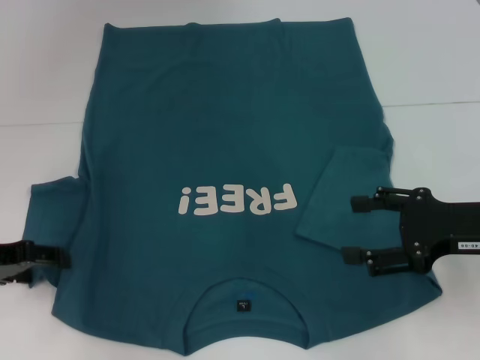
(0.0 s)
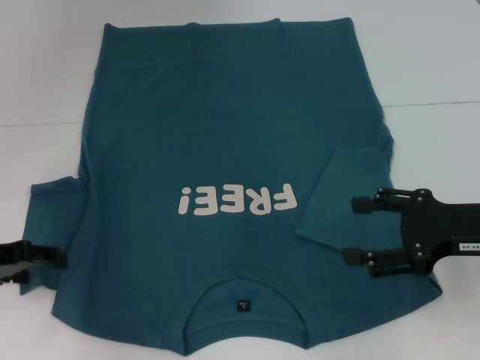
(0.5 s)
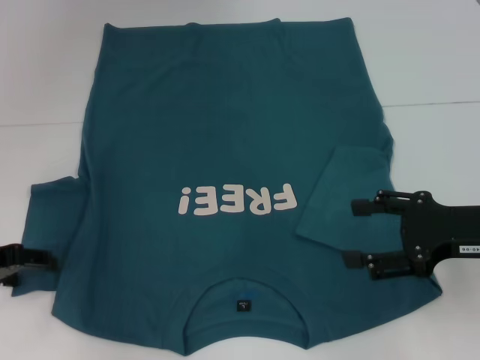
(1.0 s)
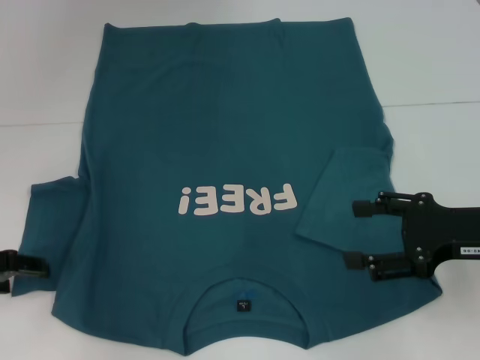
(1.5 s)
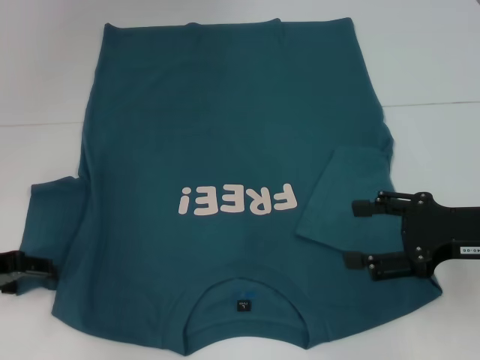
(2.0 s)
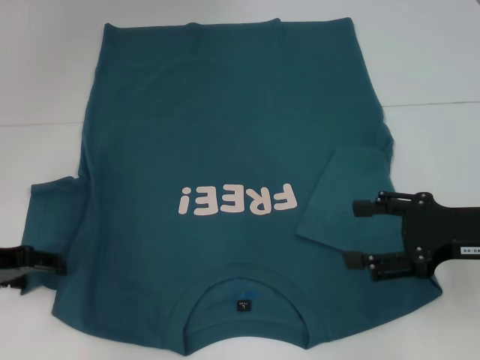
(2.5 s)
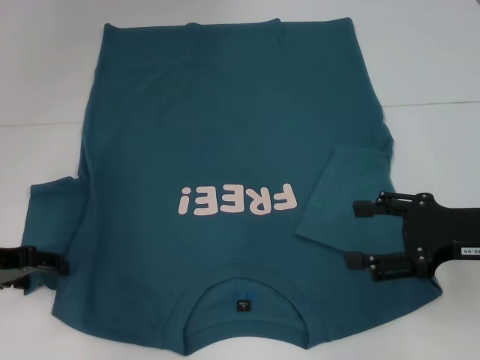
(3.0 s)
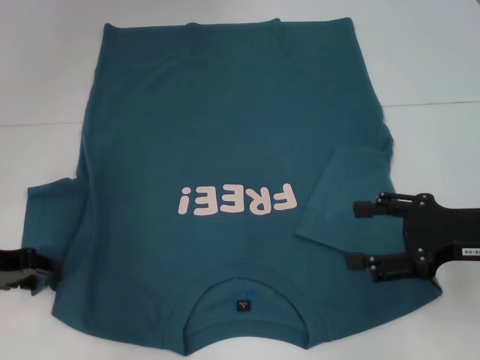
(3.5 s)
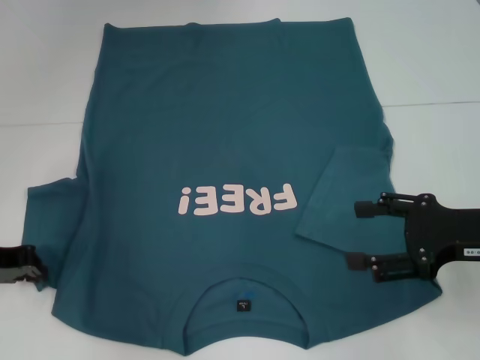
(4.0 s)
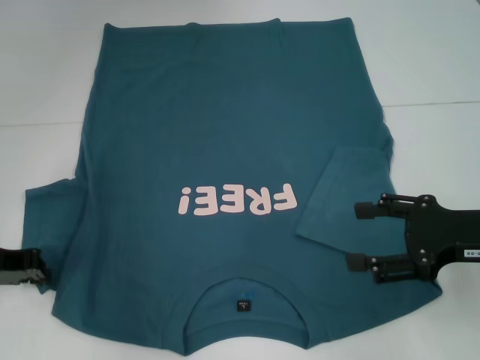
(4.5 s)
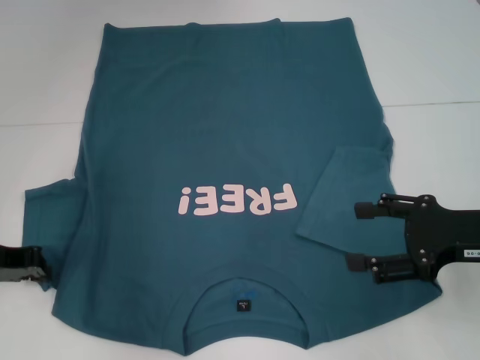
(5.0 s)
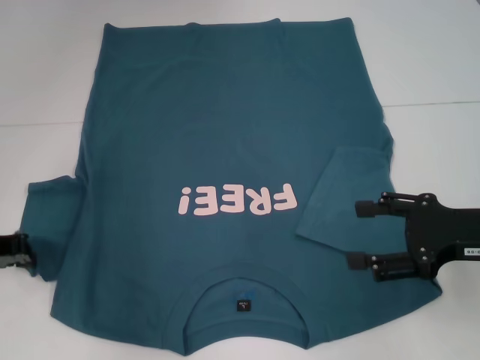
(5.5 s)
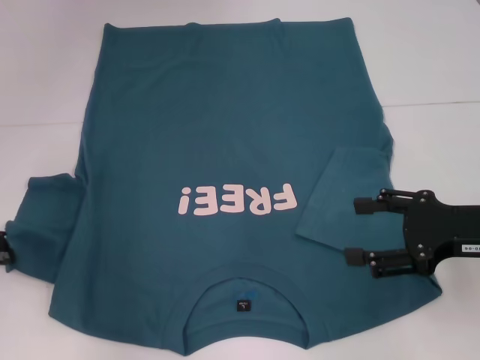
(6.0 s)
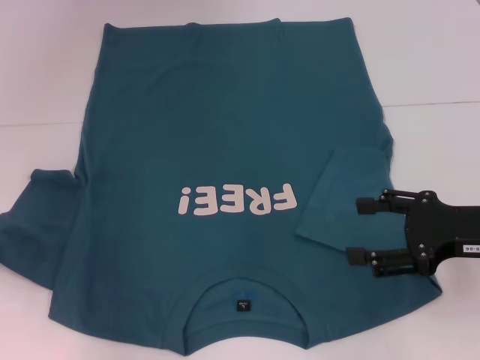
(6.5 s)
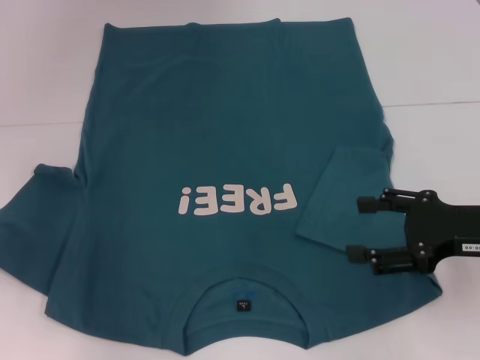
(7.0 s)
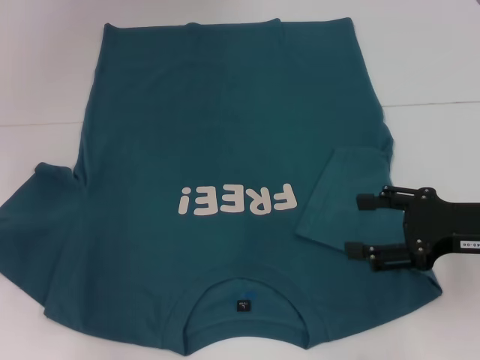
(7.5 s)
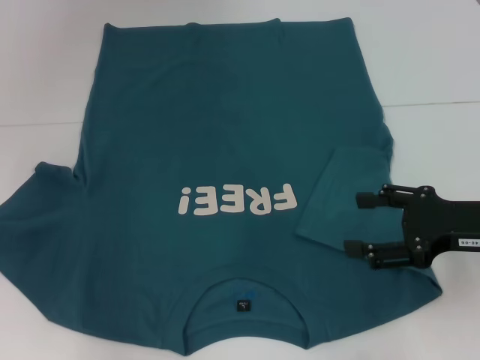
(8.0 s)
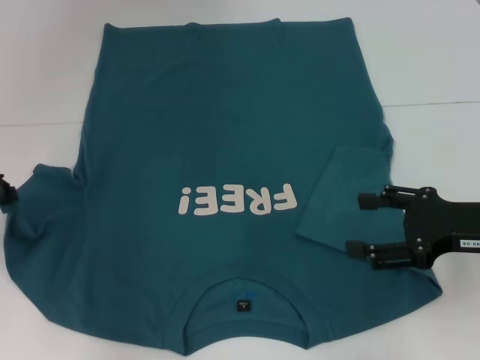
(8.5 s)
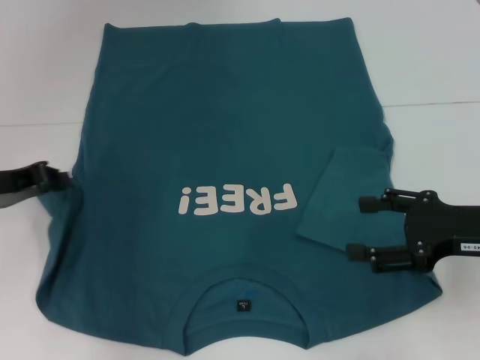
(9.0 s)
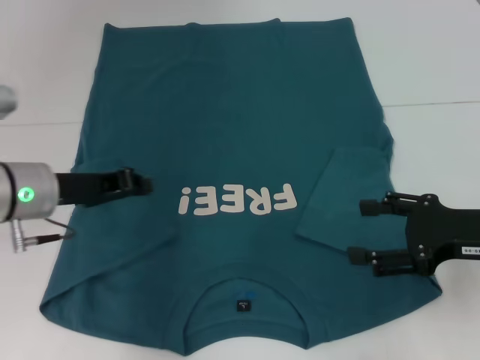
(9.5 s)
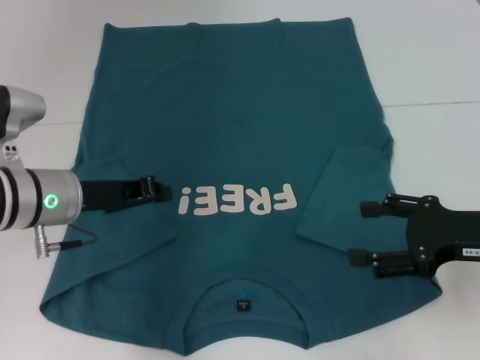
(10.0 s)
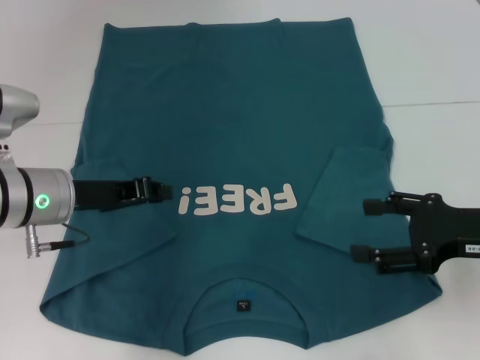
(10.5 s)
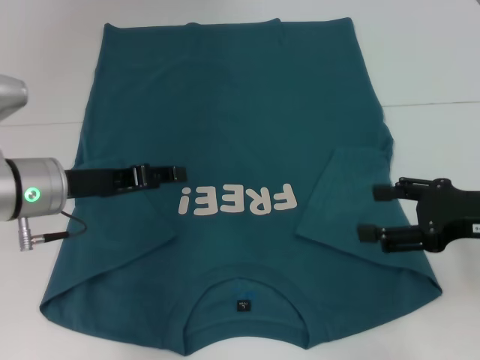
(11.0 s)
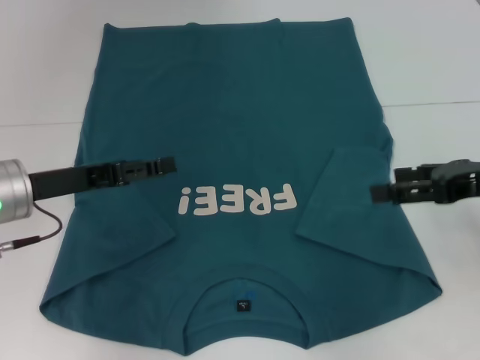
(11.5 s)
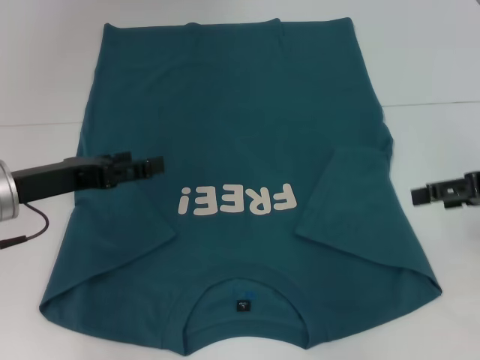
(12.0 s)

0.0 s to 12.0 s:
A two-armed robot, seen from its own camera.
Step, 0.0 to 11.0 s: Fold the bottom left sleeve with your left hand.
0.0 to 2.0 s: There are only small adjustments of the grippers.
2.0 to 4.0 s: The left gripper closes its fingers.
4.0 to 6.0 s: The grippers move only a little.
6.0 to 8.0 s: The grippers stay close to where they were, moving slightly.
8.0 to 10.0 s: The left gripper travels to the right by approximately 15 cm.
10.0 to 12.0 s: The right gripper is displaced upward by roughly 5 cm. The left gripper shifts roughly 5 cm to the left, and opens its fingers.

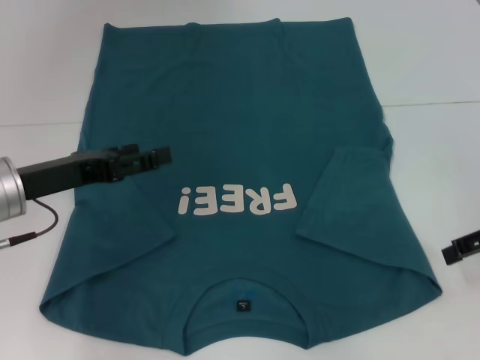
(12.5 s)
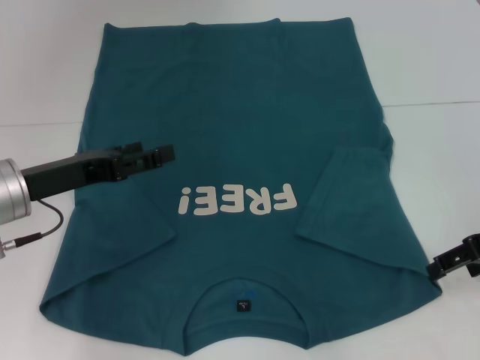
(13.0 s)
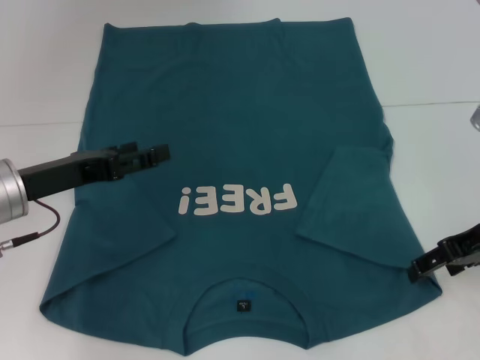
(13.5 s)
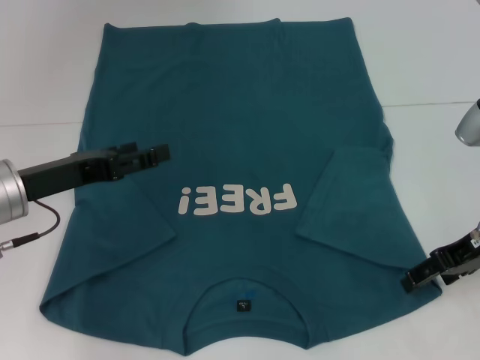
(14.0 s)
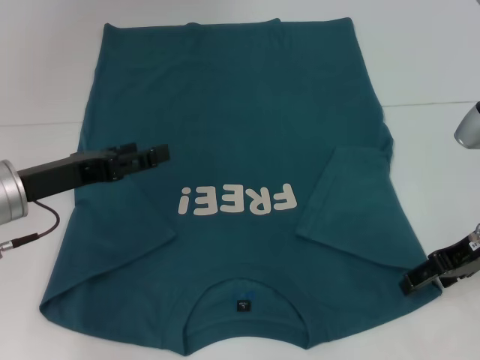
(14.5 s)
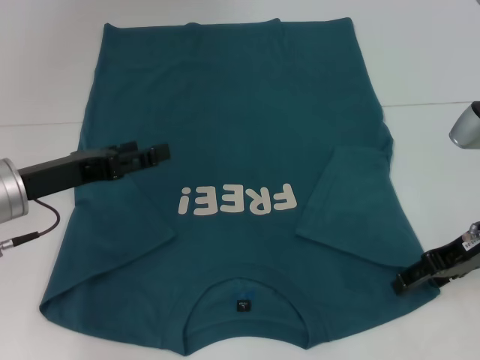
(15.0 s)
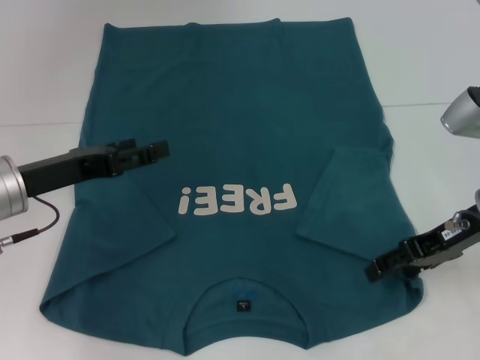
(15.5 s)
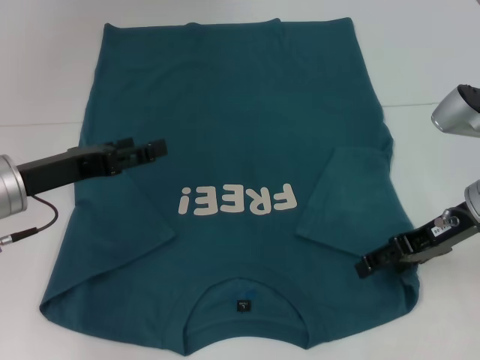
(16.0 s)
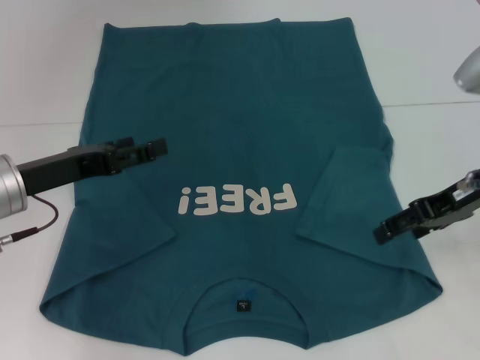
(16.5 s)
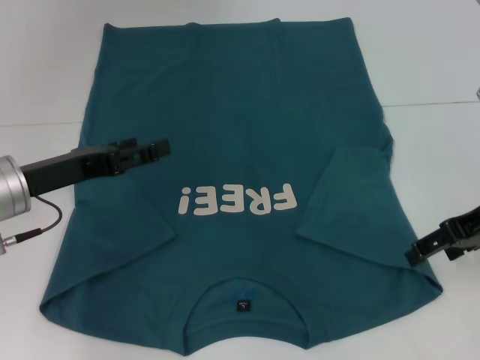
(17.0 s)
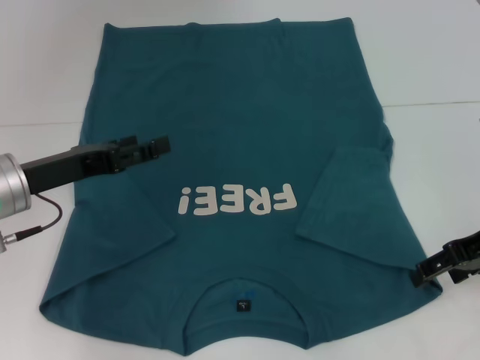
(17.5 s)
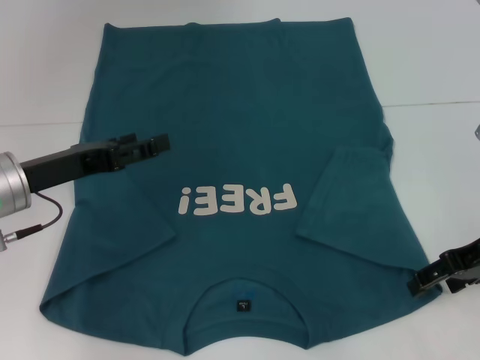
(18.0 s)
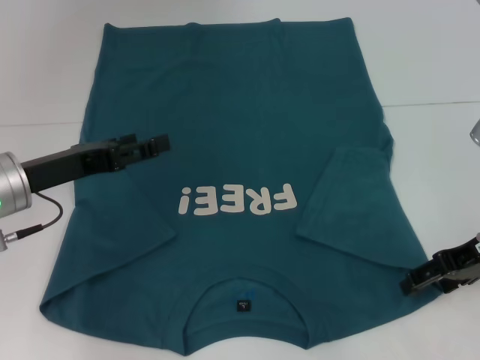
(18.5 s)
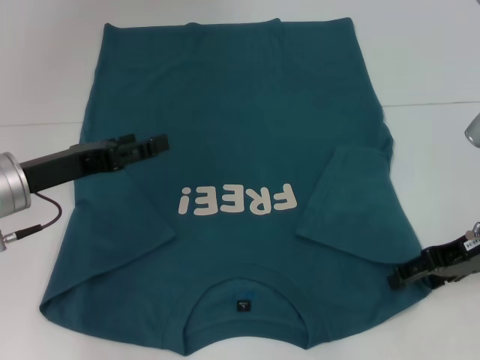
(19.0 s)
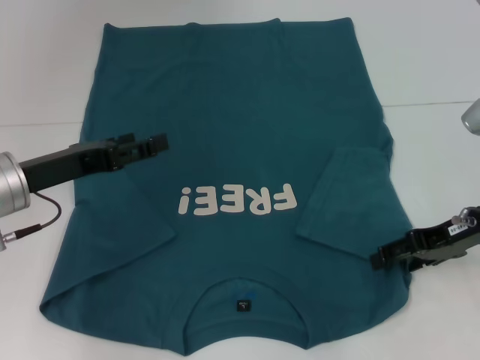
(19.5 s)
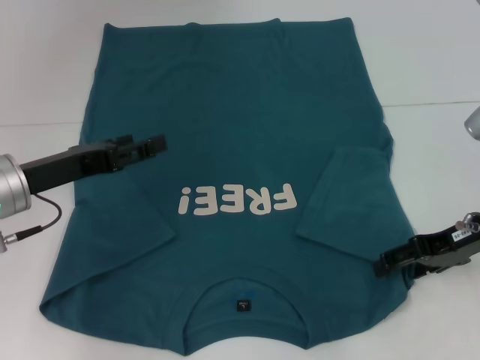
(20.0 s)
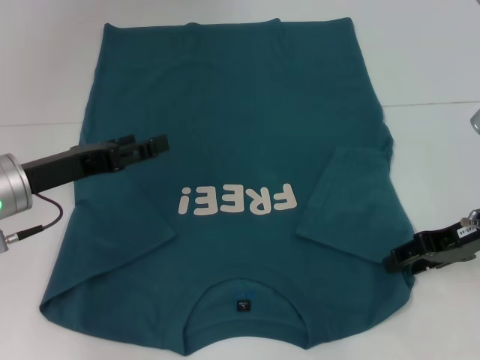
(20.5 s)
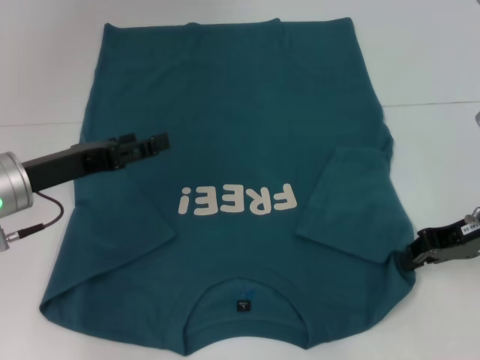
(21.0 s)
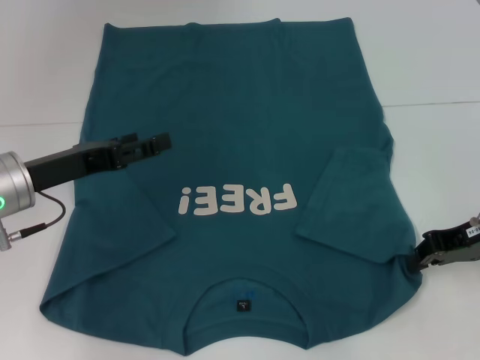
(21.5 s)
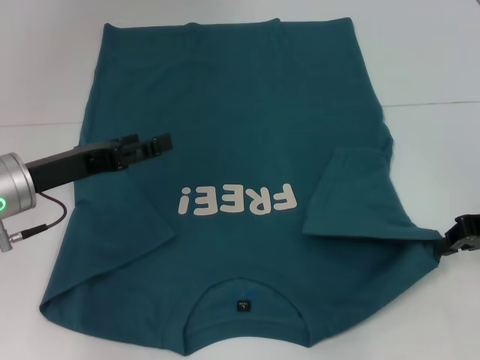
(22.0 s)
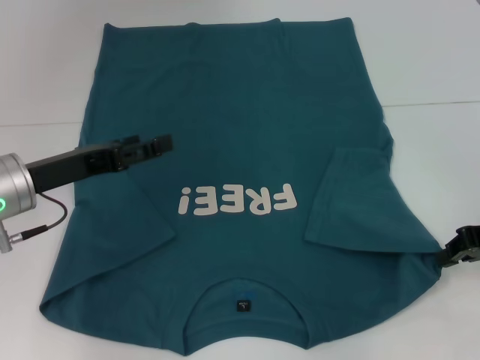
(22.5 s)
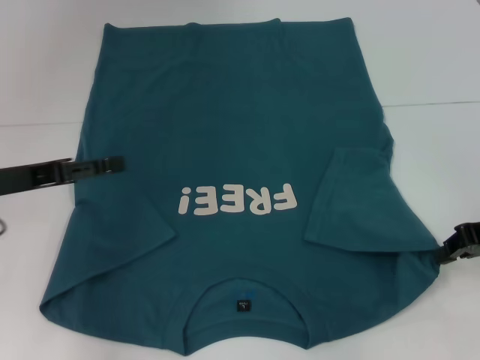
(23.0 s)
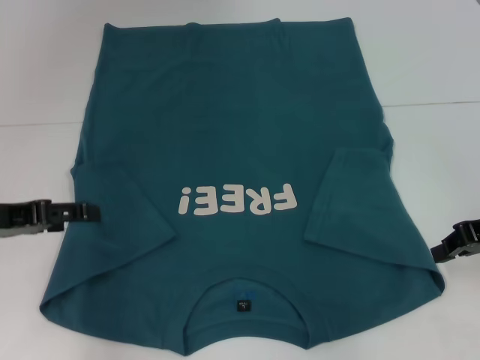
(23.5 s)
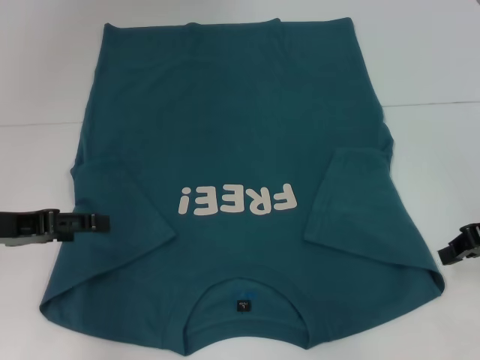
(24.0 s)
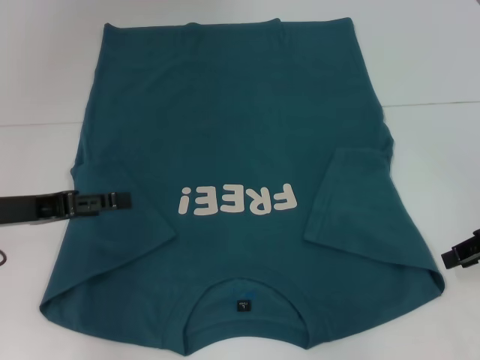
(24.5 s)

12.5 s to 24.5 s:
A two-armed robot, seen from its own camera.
12.5 to 14.5 s: The right gripper moves to the left, some 5 cm.
14.5 to 16.5 s: The grippers move only a little.
16.5 to 18.5 s: The right gripper shifts by roughly 5 cm.
18.5 to 20.5 s: The grippers move only a little.
20.5 to 22.5 s: The right gripper closes up.
22.5 to 24.5 s: The left gripper moves some 5 cm.

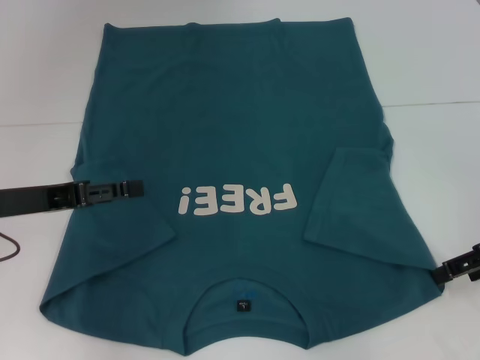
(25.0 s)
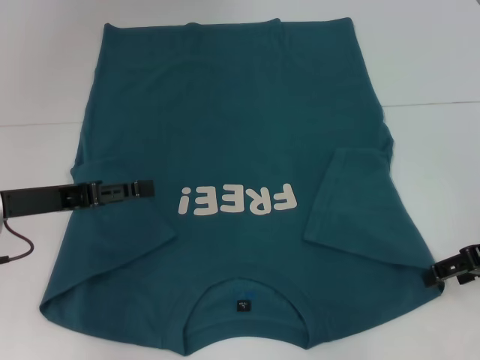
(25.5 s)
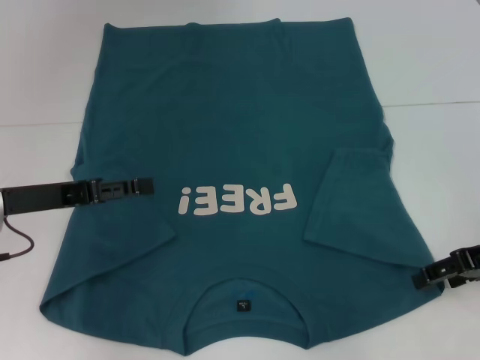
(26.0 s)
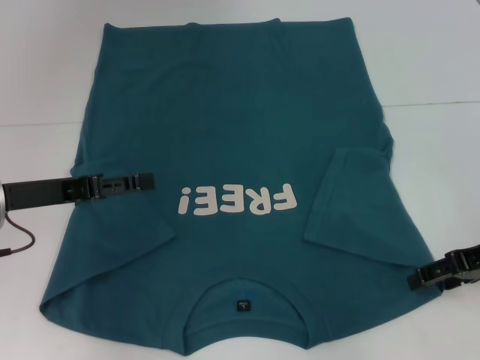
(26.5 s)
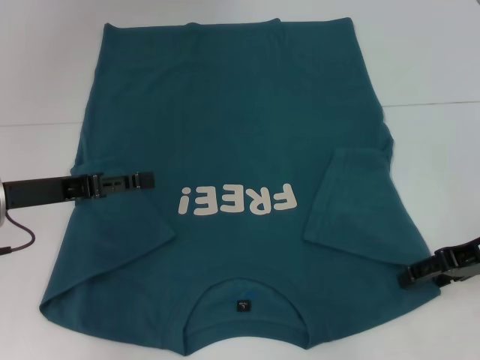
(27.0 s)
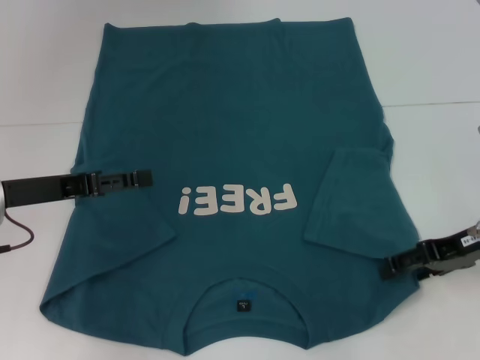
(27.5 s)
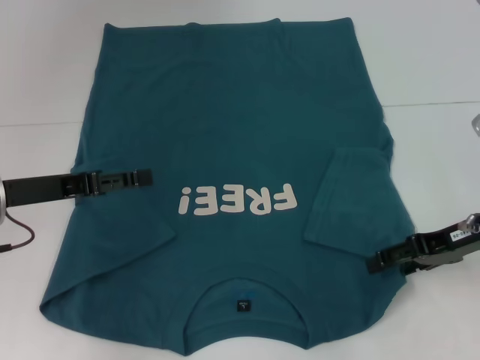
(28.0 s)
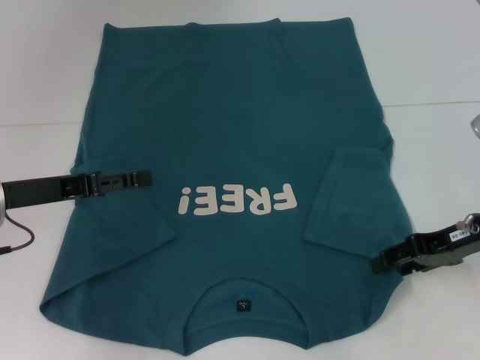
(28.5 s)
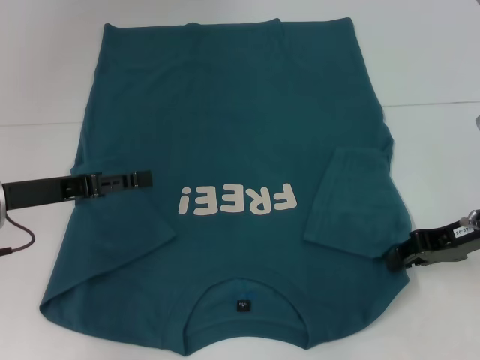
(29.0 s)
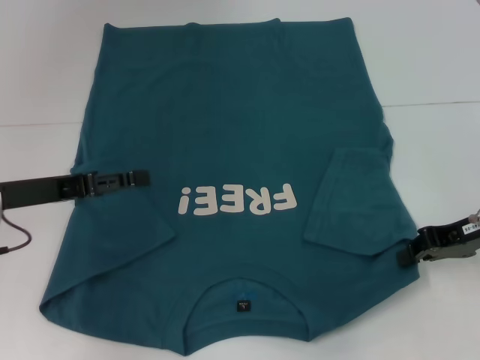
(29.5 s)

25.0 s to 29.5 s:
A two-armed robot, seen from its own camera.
25.0 to 27.0 s: The grippers make only small movements.
27.0 to 29.5 s: The right gripper closes its fingers.
